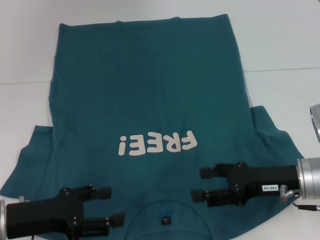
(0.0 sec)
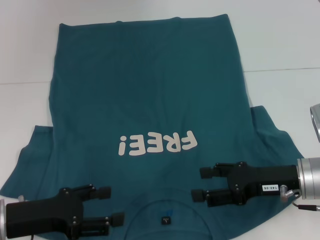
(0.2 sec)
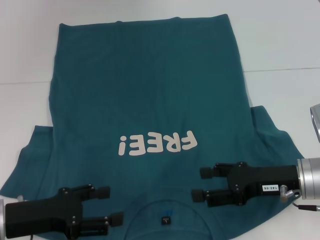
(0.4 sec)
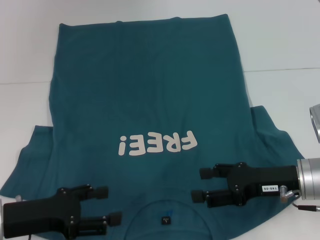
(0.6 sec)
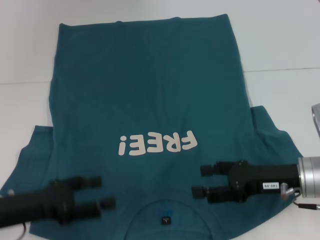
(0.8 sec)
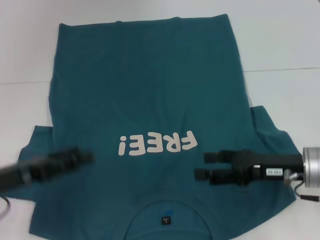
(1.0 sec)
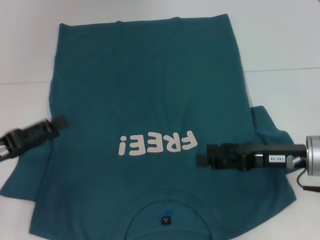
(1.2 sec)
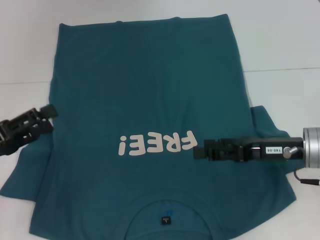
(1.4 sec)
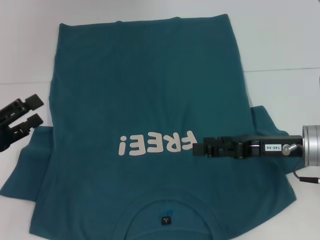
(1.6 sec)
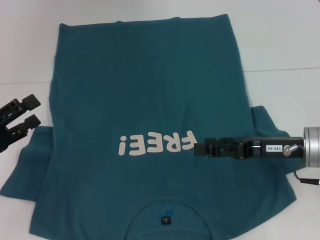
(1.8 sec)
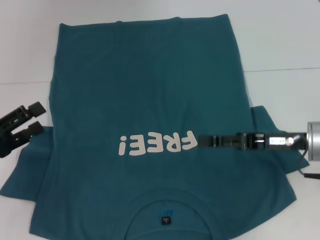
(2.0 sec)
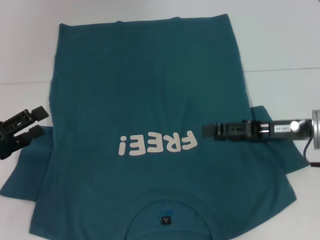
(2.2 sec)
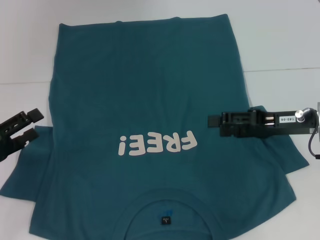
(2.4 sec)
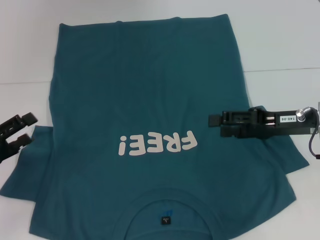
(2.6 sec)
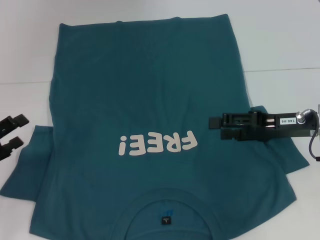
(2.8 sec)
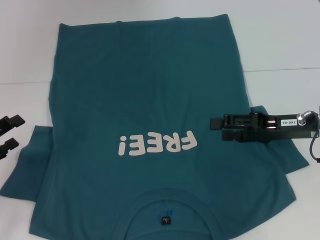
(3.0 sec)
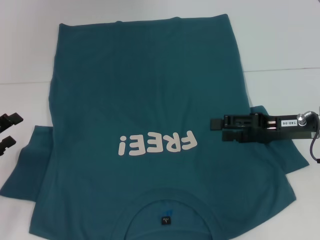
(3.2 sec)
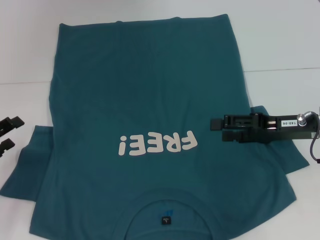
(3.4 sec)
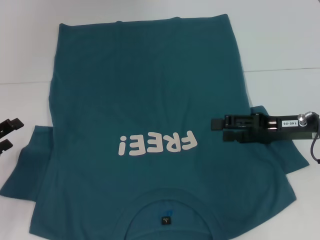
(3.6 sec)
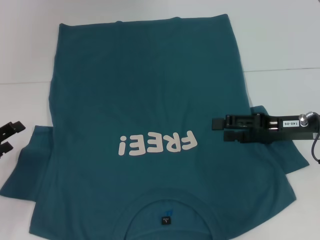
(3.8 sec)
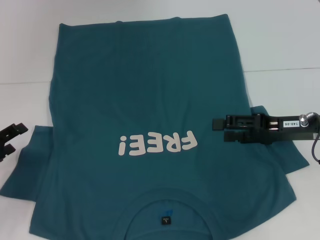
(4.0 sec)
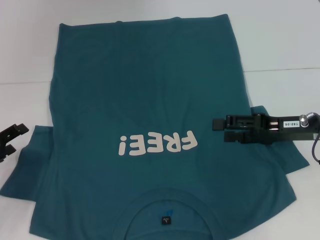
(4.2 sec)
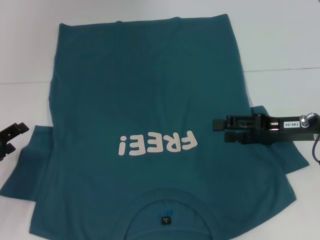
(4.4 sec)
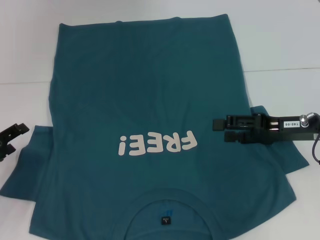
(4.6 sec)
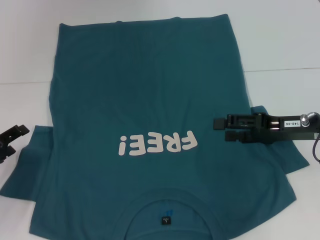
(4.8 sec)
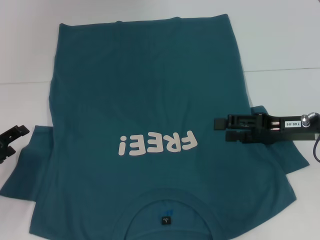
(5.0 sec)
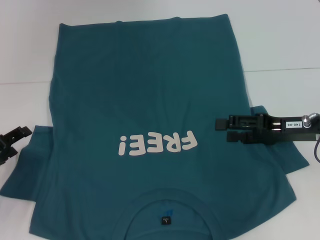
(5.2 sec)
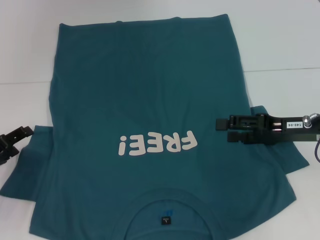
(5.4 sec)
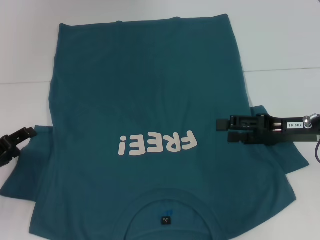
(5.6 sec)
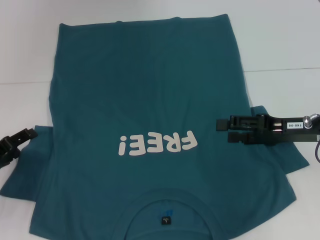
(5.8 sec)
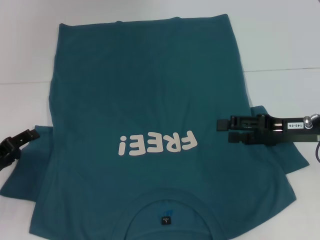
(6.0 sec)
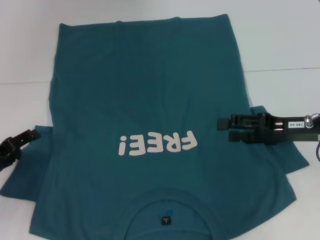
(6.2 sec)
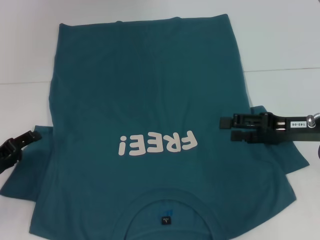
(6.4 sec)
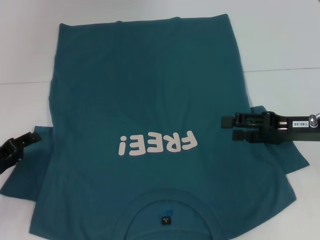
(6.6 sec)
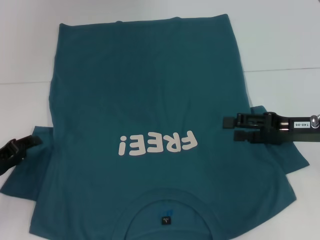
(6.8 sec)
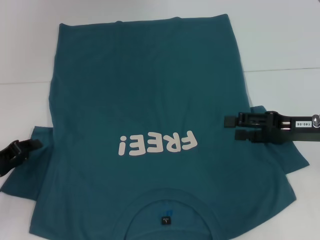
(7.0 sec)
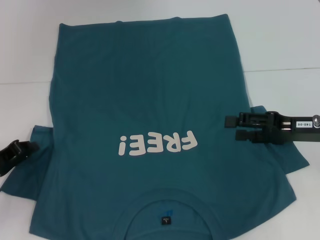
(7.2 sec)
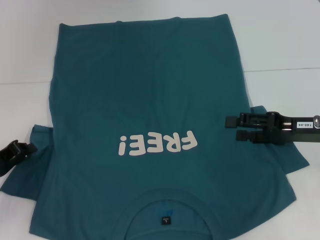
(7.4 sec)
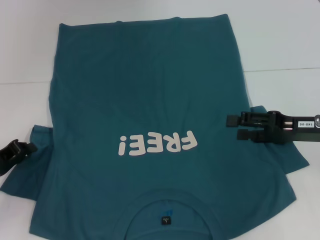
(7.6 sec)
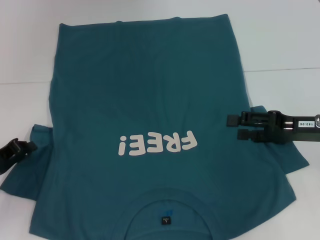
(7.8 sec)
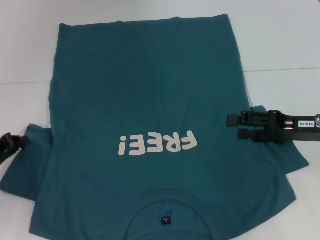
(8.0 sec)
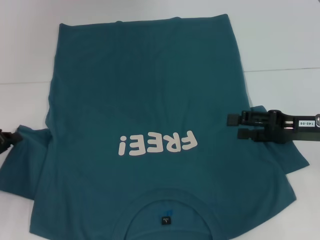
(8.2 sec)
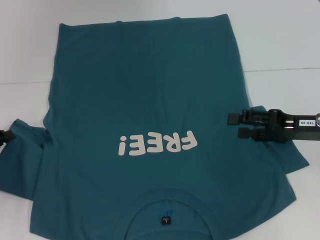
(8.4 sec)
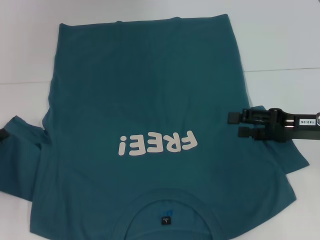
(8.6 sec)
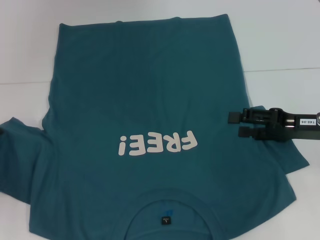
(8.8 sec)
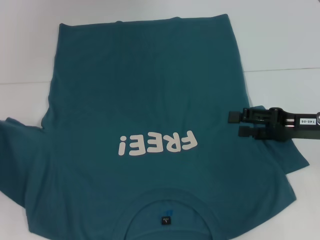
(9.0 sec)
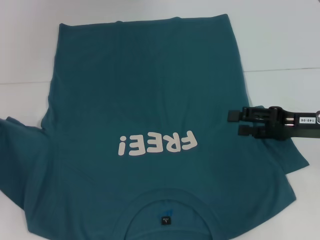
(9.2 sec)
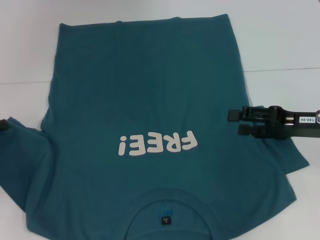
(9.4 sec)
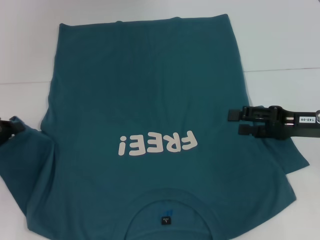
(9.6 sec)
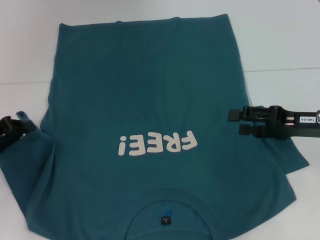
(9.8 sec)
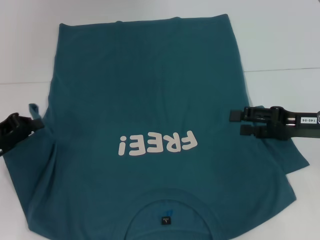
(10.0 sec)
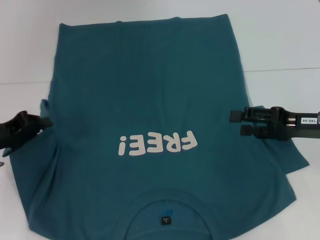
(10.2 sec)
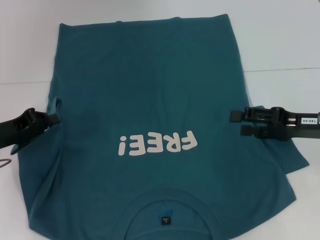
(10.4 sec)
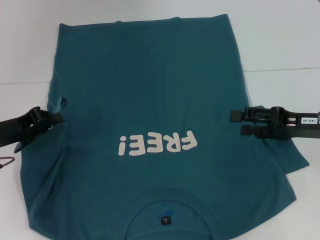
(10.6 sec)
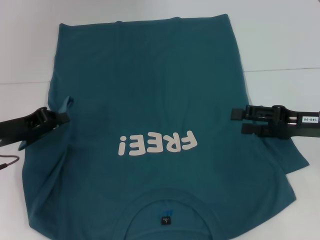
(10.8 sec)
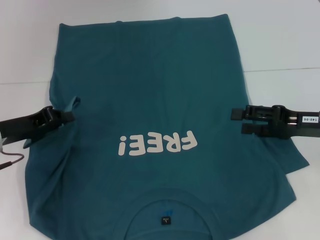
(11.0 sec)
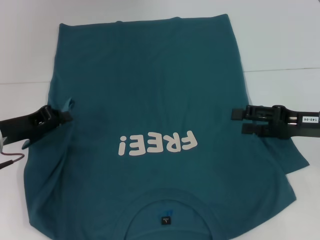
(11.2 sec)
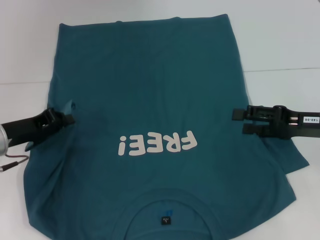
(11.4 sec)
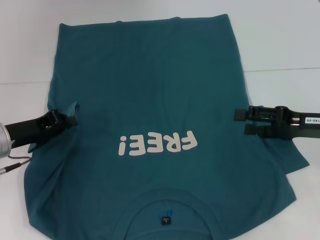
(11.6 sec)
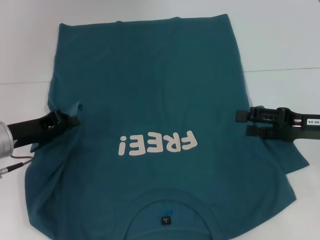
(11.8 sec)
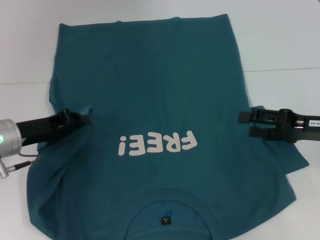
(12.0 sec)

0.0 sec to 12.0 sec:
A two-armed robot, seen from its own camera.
0.0 sec to 1.6 sec: The left gripper heads to the left, covering some 5 cm.
3.0 sec to 6.0 sec: There are only small adjustments of the grippers.
6.0 sec to 7.6 sec: The left gripper closes up.
7.6 sec to 9.0 sec: The left gripper is displaced to the left by roughly 5 cm.
9.0 sec to 10.4 sec: The left gripper heads to the right, covering about 10 cm.
10.4 sec to 12.0 sec: There are only small adjustments of the grippers.

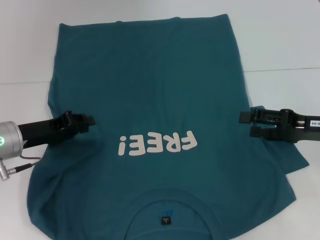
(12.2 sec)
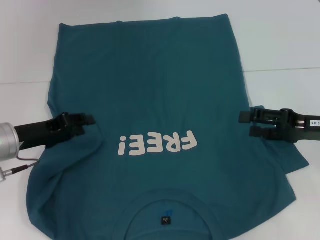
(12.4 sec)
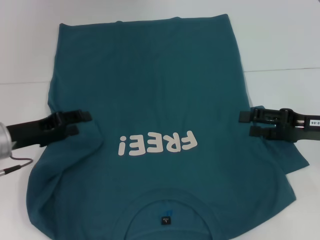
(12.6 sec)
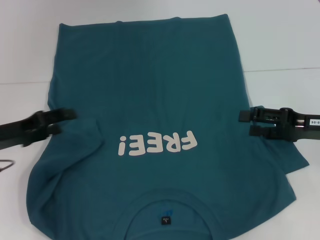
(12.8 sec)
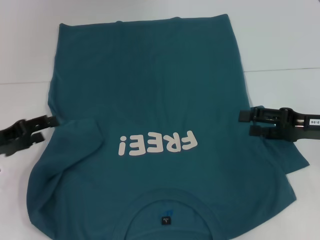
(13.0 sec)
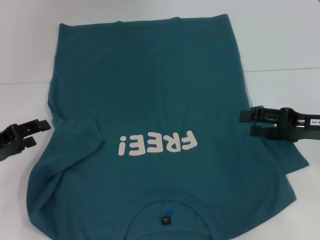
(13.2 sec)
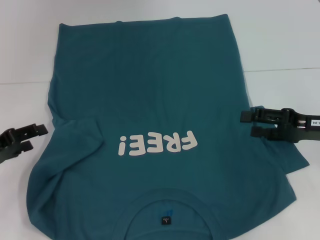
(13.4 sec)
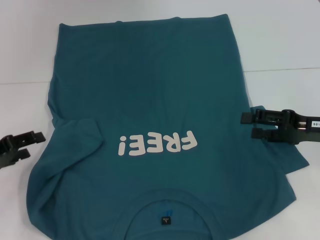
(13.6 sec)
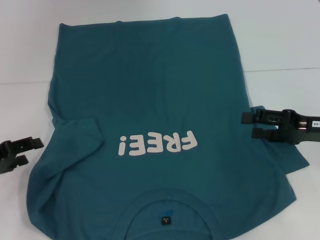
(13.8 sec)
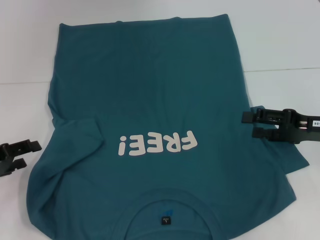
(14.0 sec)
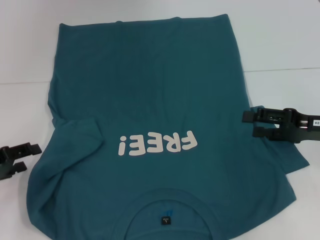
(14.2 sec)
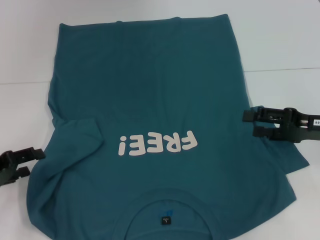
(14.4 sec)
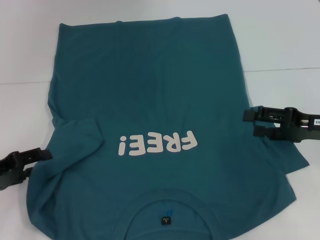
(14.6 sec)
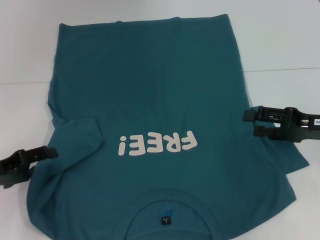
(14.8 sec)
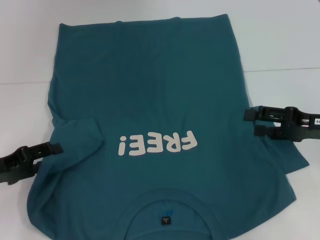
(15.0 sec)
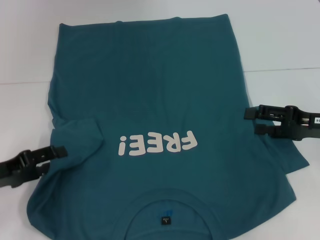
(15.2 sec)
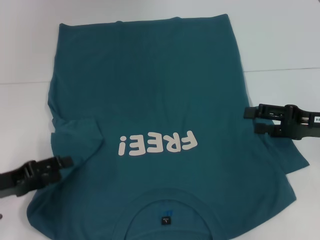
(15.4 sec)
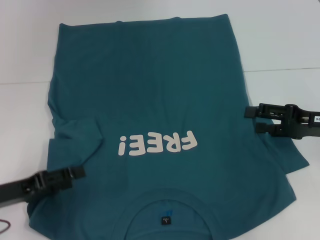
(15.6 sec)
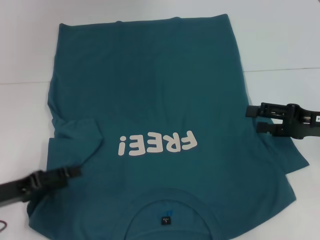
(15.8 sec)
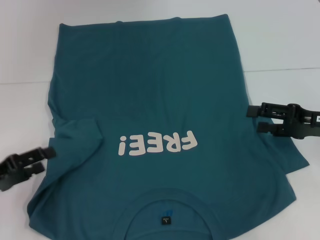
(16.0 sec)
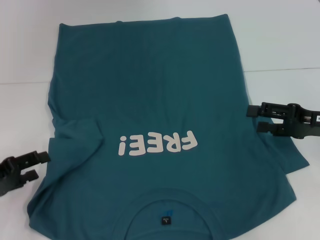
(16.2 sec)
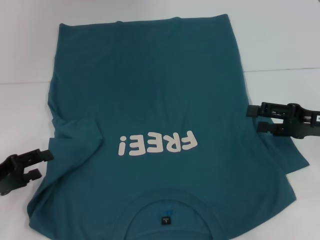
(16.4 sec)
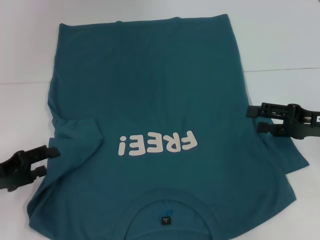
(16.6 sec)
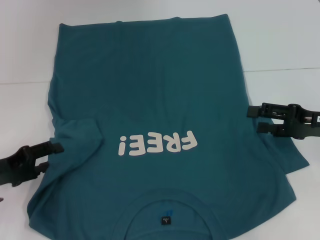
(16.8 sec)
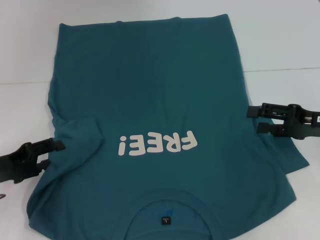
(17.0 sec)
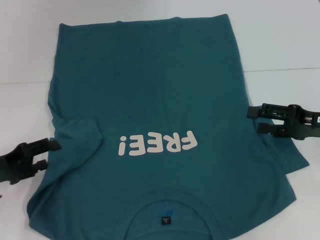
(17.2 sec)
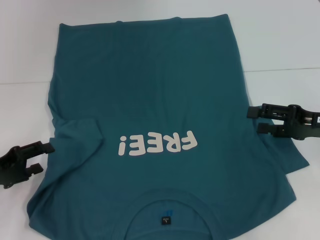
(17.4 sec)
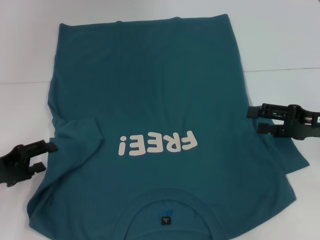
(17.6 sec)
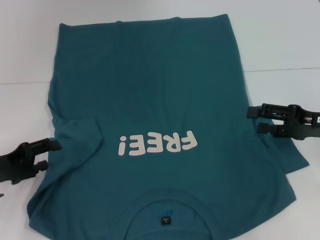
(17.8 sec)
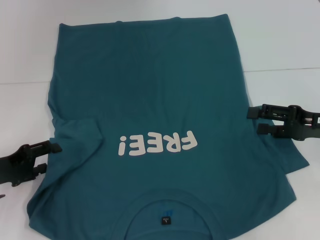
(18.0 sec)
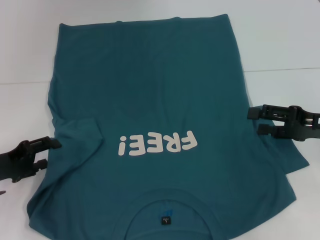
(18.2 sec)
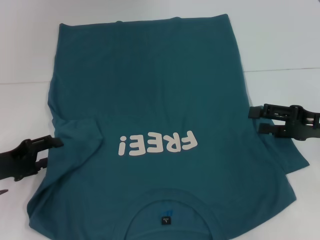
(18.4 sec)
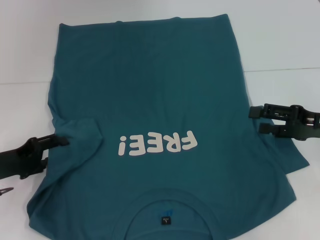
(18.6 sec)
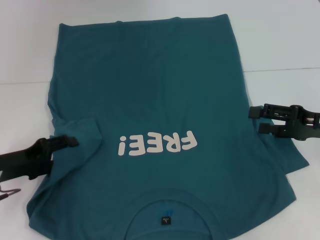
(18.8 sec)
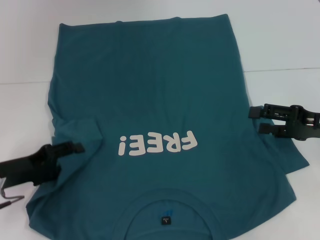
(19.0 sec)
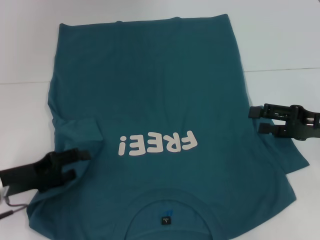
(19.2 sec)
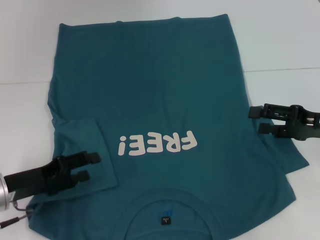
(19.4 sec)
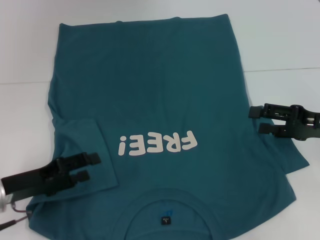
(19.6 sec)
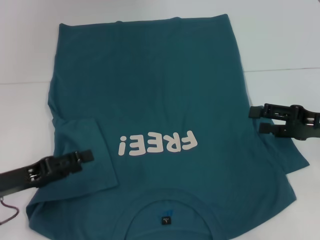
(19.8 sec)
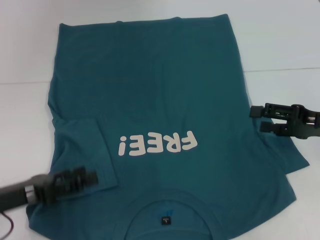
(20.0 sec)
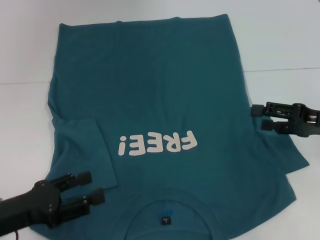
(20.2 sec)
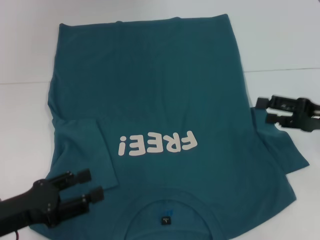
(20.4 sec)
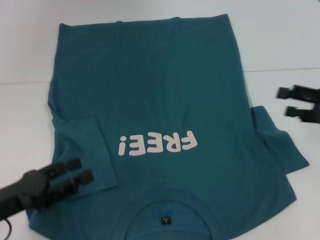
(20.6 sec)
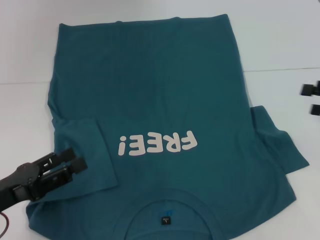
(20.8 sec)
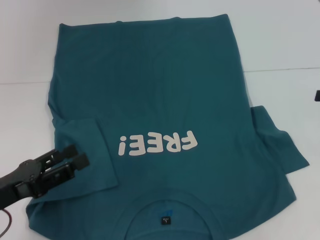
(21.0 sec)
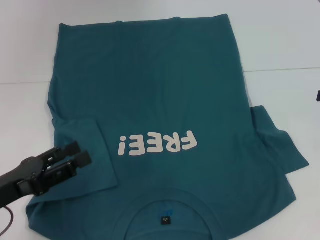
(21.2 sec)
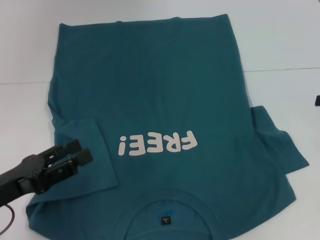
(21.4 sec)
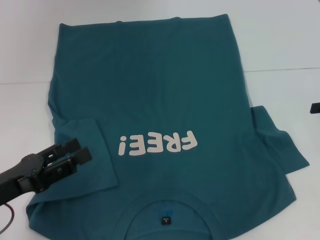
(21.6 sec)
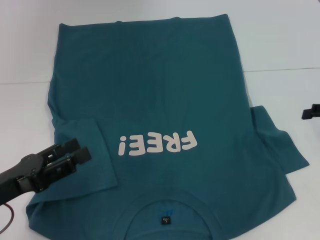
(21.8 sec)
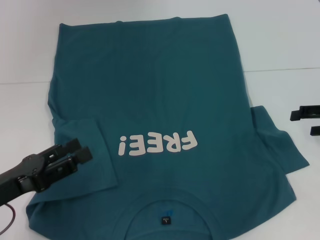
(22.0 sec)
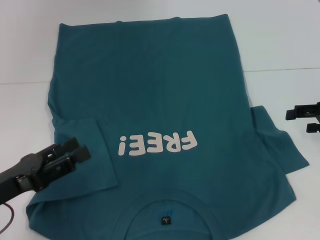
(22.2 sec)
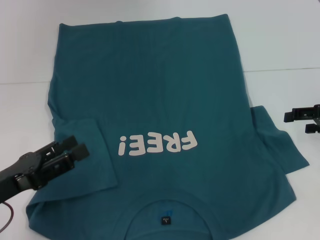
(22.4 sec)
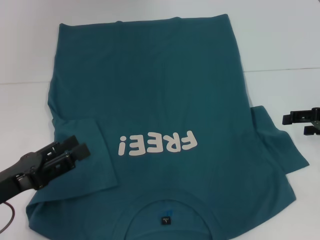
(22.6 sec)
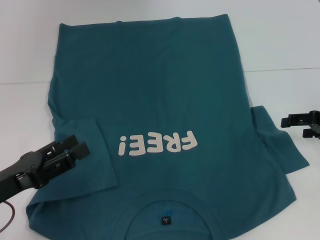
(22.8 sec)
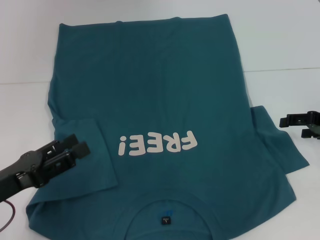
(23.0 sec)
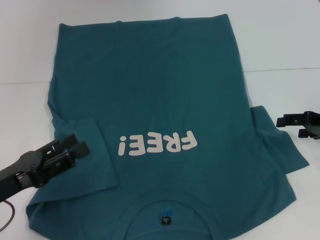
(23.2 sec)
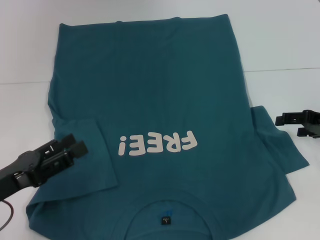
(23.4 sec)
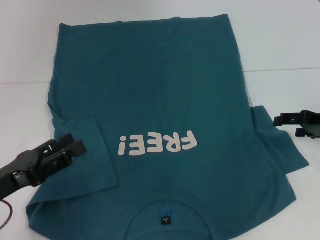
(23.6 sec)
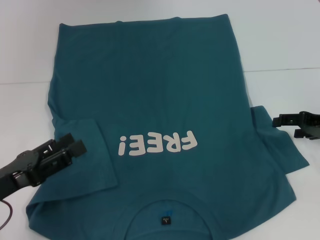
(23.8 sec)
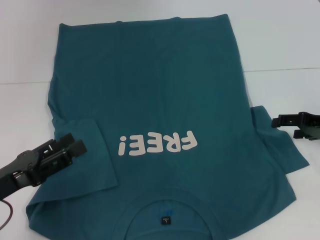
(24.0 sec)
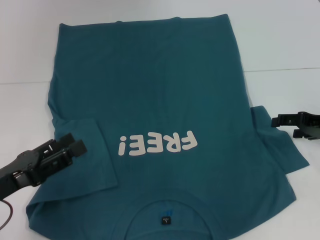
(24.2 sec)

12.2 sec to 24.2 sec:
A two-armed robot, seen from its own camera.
Step, 12.2 sec to 19.4 sec: Fold the bottom left sleeve with your left hand.
12.2 sec to 13.8 sec: The left gripper shifts some 10 cm to the left, and opens its fingers.
13.8 sec to 18.2 sec: There are only small adjustments of the grippers.
18.2 sec to 19.8 sec: The left gripper changes place by some 5 cm.
19.8 sec to 21.2 sec: The right gripper is displaced to the right and upward by approximately 10 cm.
21.2 sec to 22.6 sec: The right gripper heads downward, covering about 5 cm.
22.6 sec to 24.2 sec: The grippers make only small movements.
